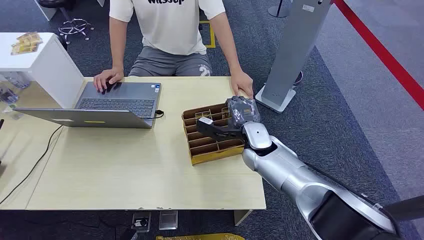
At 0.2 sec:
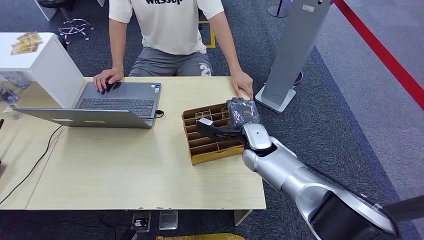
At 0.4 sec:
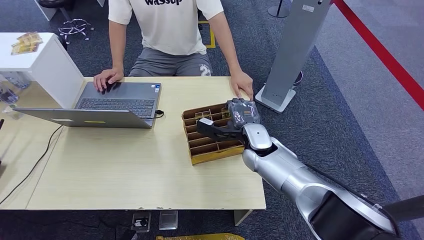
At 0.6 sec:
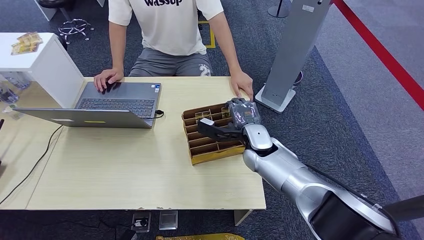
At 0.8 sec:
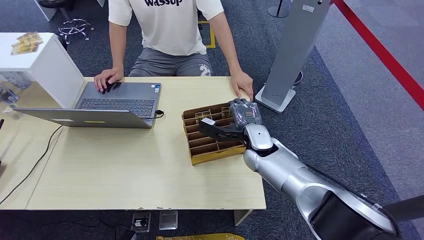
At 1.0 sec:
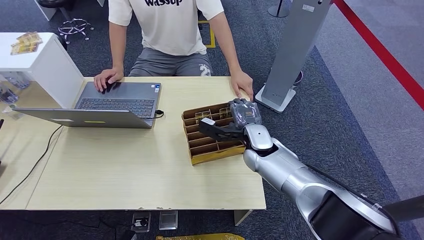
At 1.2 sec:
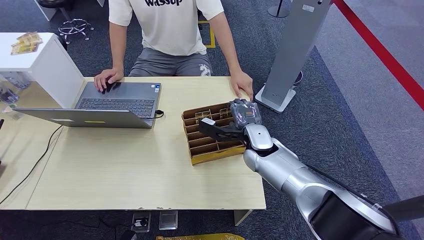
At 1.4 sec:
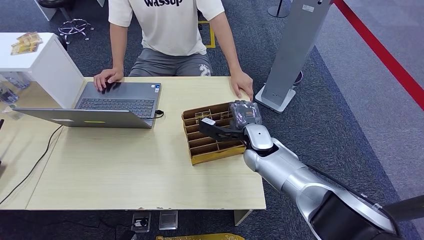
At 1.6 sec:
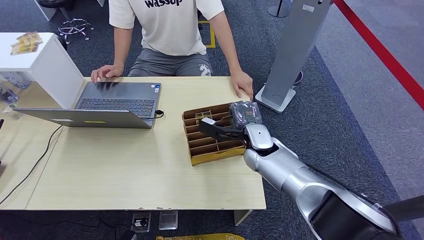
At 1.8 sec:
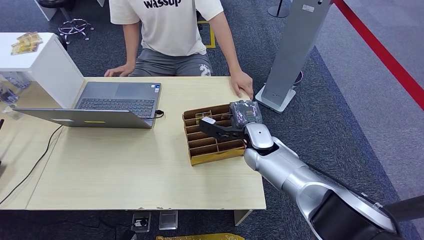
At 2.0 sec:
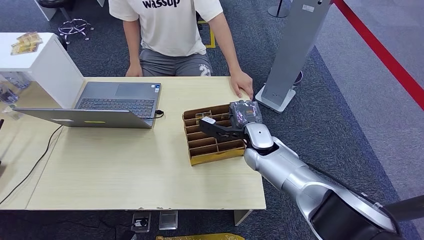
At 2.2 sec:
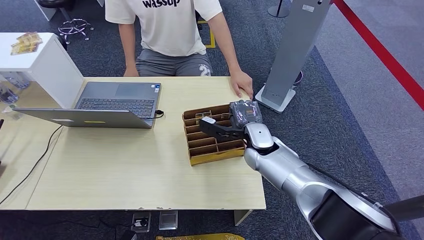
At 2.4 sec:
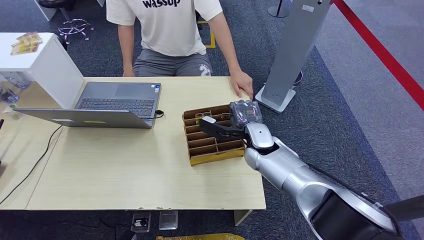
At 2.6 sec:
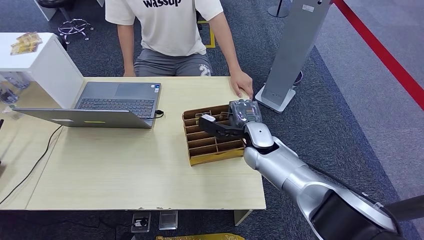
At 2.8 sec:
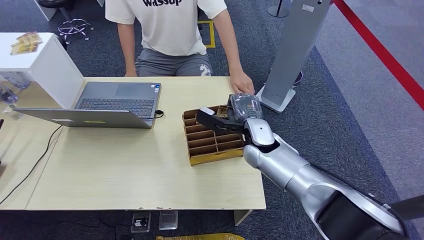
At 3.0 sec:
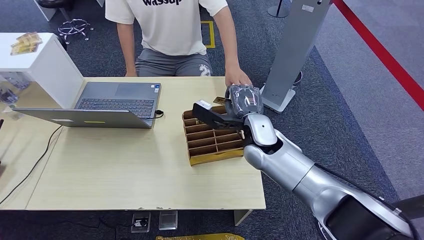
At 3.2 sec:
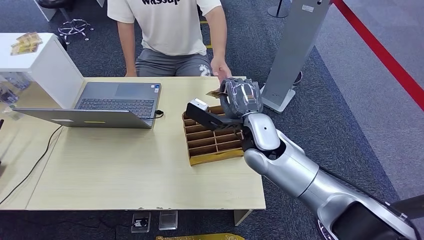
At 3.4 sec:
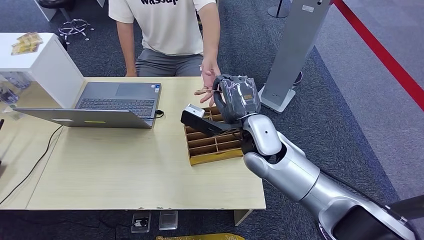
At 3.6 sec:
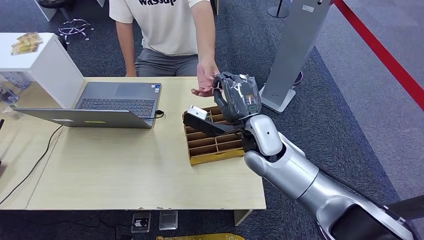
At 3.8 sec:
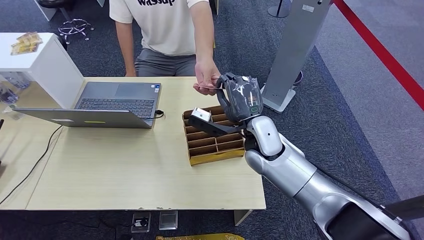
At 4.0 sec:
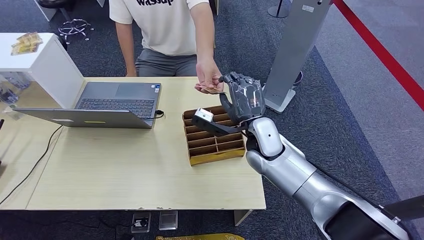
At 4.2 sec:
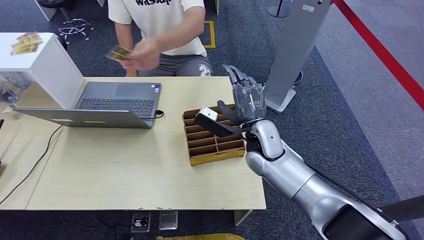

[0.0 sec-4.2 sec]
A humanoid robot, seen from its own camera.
Step, 0.0 sec to 3.0 sec: Pick up the key card from the card box.
Step, 3.4 sec to 4.2 sec: Hand the key card to the target.
1.4 sec to 2.8 sec: The hands make only small movements.
